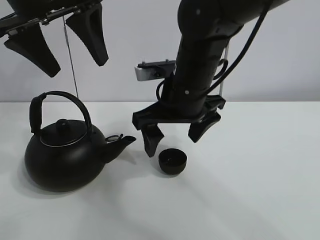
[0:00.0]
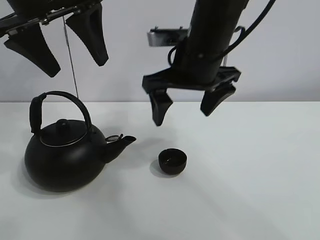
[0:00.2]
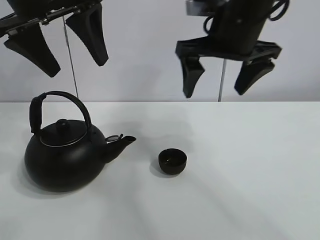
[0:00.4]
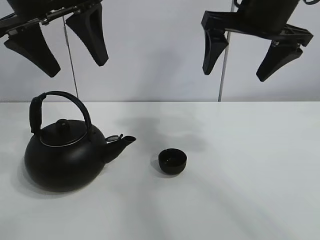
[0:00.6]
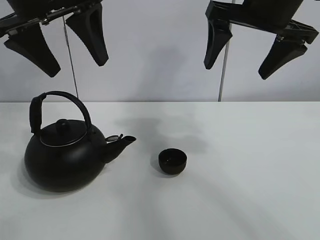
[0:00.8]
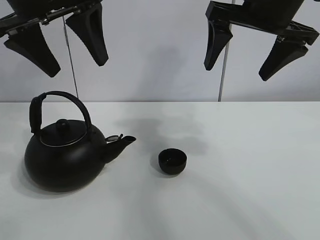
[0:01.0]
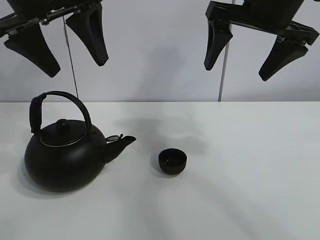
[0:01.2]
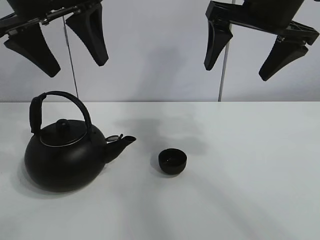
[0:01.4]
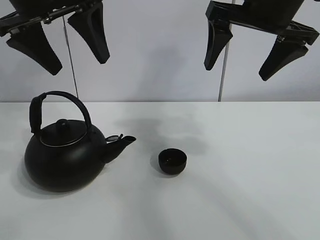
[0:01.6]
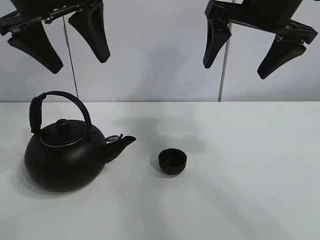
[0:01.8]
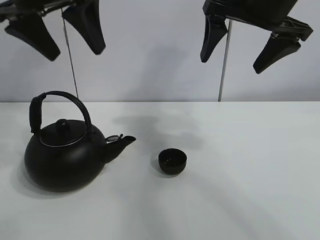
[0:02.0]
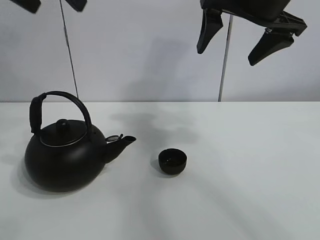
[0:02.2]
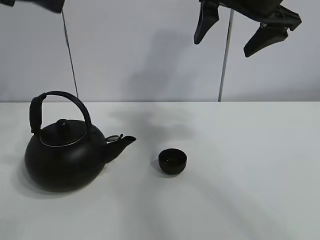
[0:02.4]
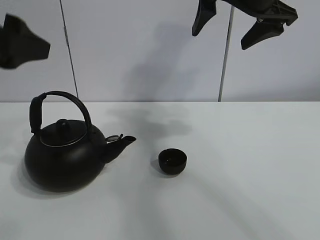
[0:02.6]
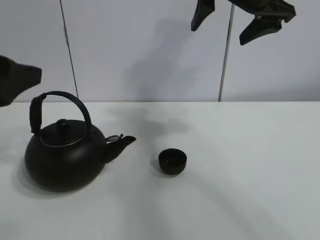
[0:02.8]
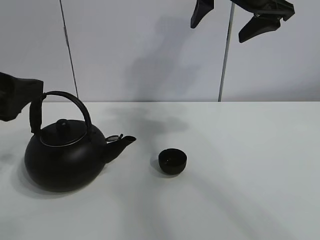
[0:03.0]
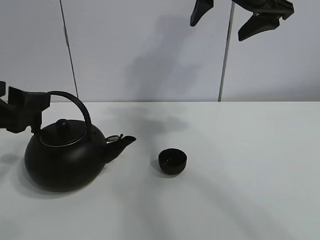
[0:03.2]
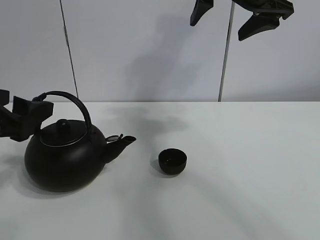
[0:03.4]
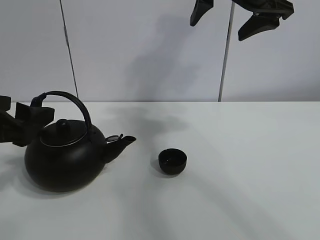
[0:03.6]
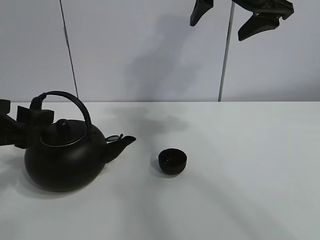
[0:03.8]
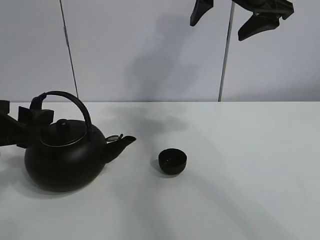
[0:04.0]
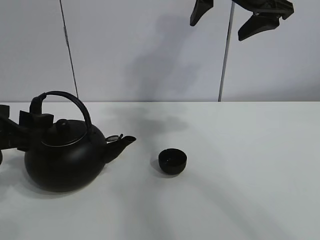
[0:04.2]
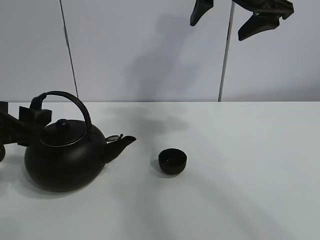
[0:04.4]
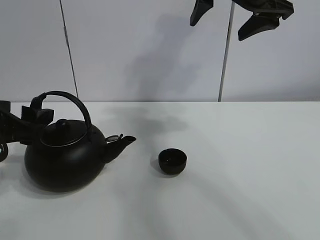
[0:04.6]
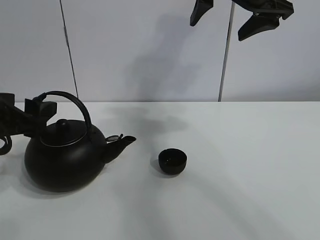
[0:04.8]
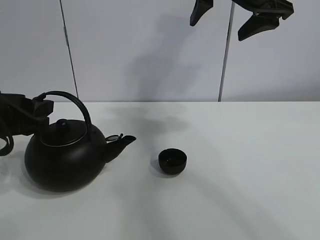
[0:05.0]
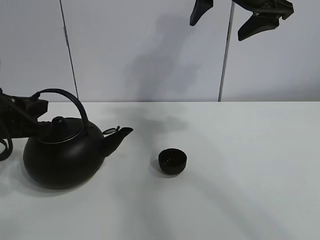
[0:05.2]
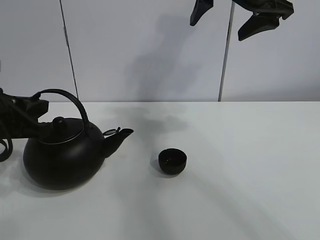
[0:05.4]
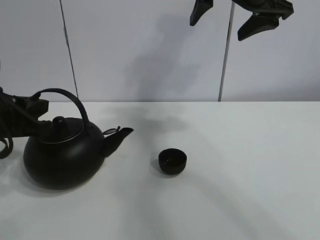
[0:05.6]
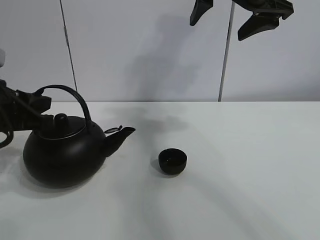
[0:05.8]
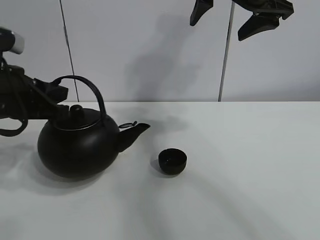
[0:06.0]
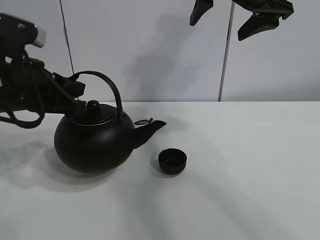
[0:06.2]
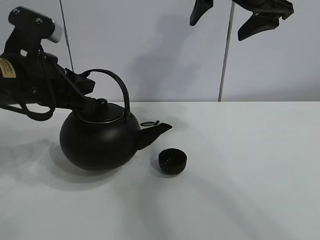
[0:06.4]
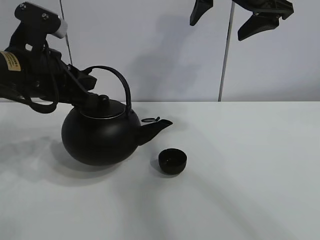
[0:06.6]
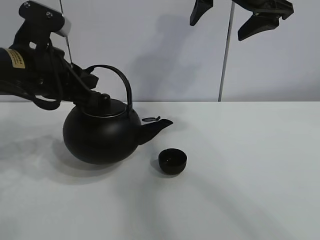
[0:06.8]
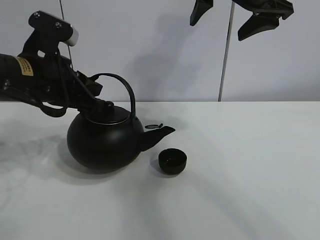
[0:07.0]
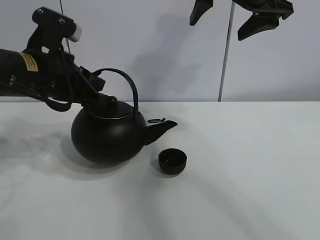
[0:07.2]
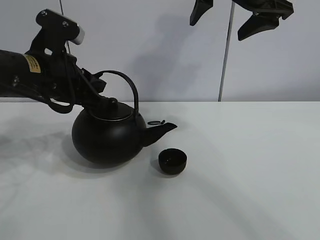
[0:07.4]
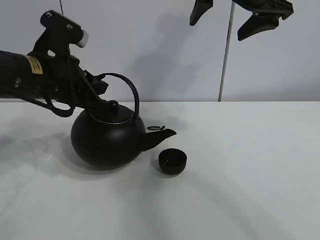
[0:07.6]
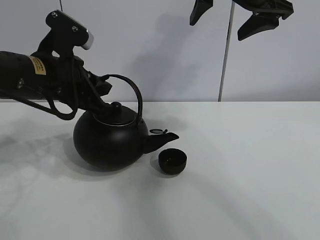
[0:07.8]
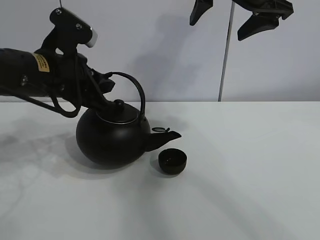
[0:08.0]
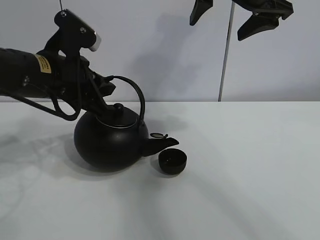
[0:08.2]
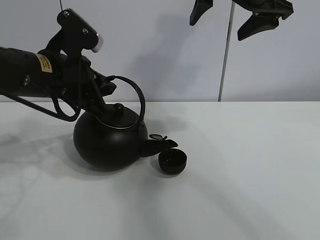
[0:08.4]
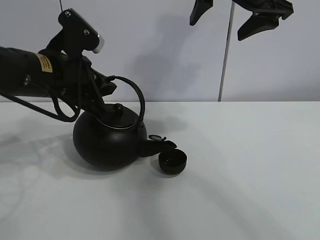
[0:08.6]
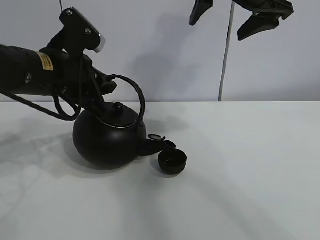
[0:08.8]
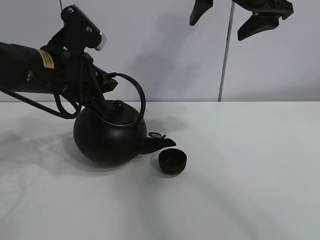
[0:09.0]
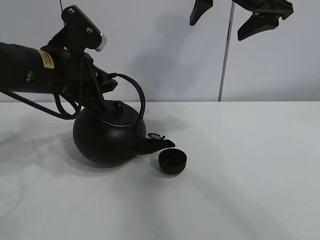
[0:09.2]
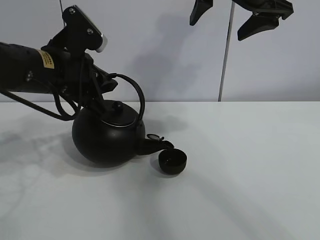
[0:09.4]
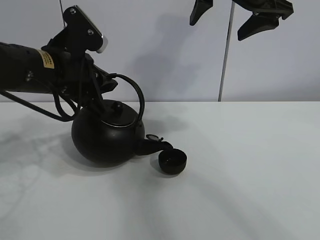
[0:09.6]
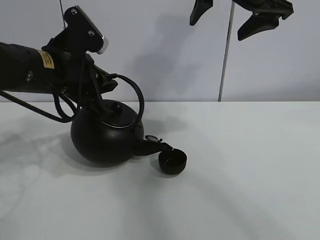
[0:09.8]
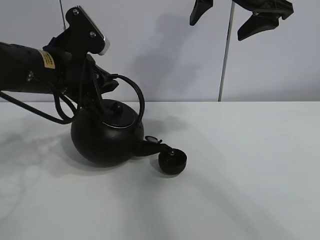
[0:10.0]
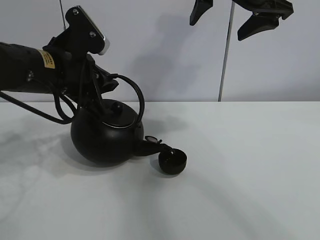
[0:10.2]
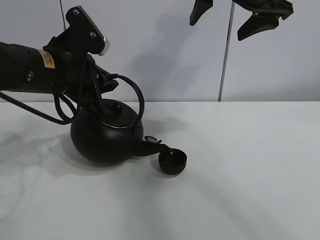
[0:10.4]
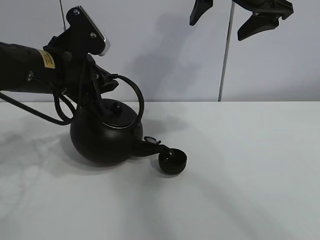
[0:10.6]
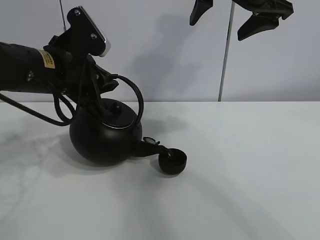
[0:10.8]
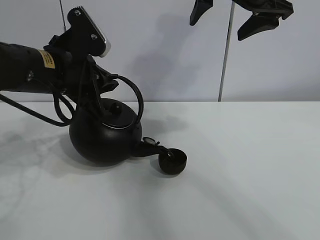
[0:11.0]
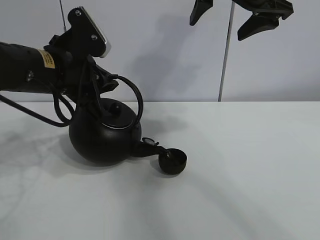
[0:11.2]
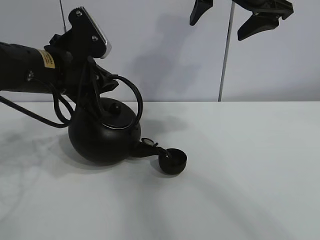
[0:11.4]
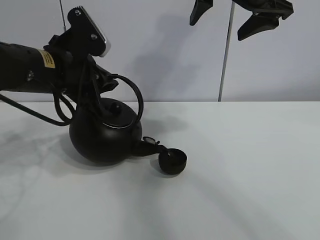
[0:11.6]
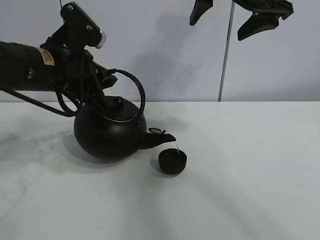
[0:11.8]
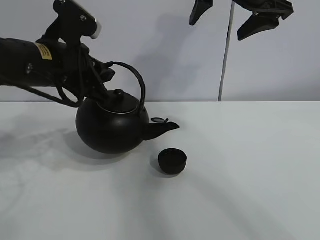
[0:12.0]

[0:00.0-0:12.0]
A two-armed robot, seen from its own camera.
Task of the whole recording: pour tea into the teacup.
Step, 0:00.0 to 0:05.6: Pick up the teapot with the left gripper.
Step, 0:05.8 to 0:11.8: Pour tea into the teacup with the left gripper.
0:00.0 to 0:01.6: The right gripper travels upward and to the right by roughly 15 cm.
0:01.6 to 0:03.0: The left gripper moves downward, backward and to the left, some 20 cm.
0:03.0 to 0:04.4: The left gripper shifts approximately 5 cm downward.
0:04.4 to 0:06.0: The left gripper shifts by about 5 cm, and closes its fingers.
0:06.0 to 0:07.6: The left gripper goes some 5 cm to the right.
0:07.6 to 0:10.4: The grippers move only a little.
0:10.4 to 0:12.0: The grippers make only small movements.

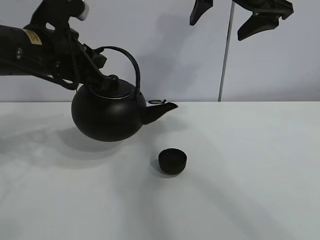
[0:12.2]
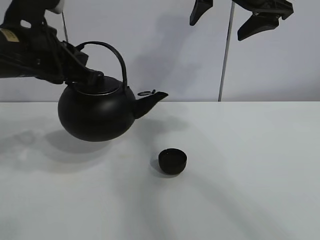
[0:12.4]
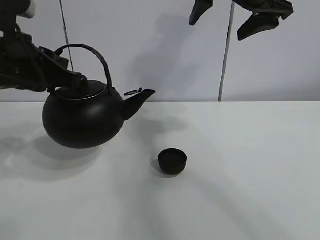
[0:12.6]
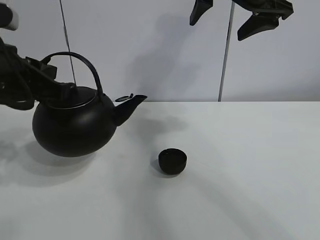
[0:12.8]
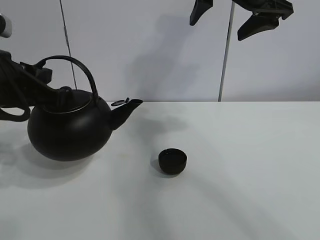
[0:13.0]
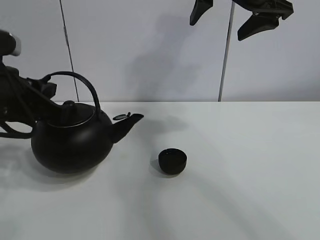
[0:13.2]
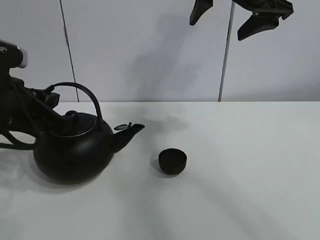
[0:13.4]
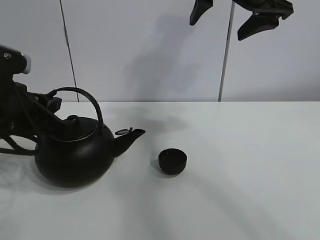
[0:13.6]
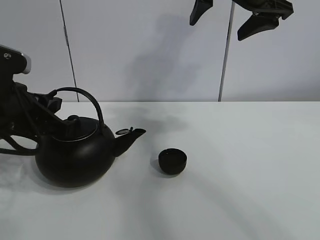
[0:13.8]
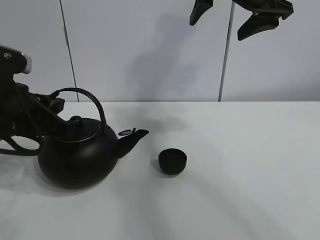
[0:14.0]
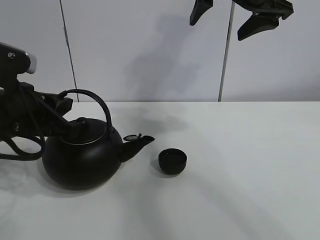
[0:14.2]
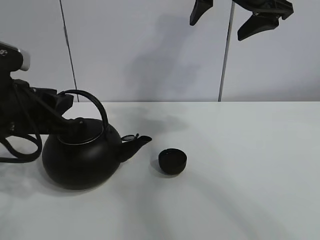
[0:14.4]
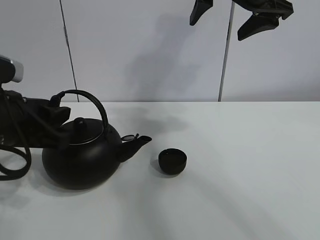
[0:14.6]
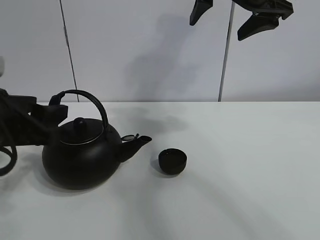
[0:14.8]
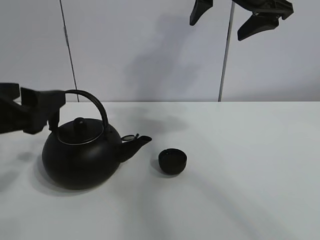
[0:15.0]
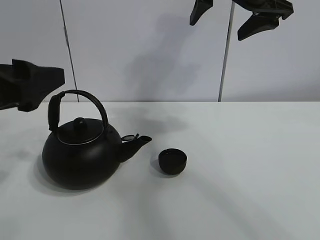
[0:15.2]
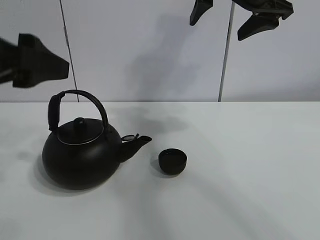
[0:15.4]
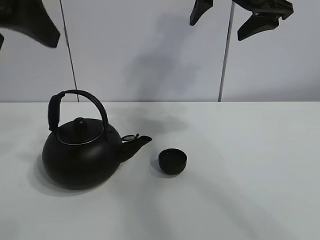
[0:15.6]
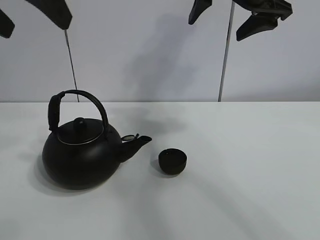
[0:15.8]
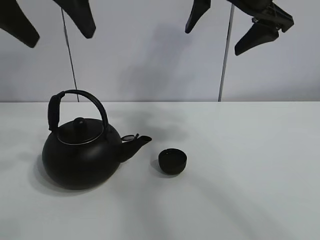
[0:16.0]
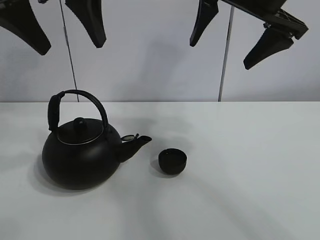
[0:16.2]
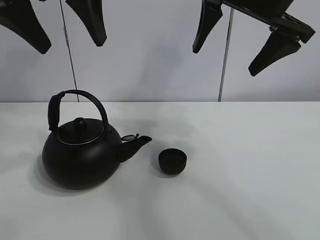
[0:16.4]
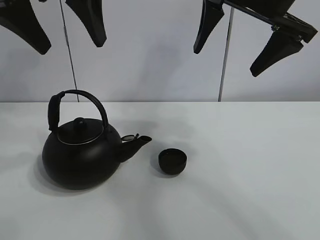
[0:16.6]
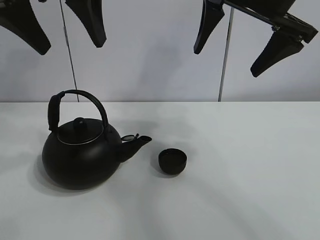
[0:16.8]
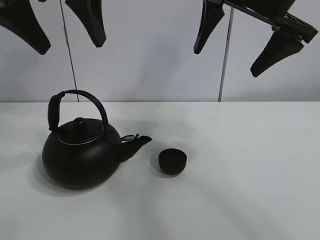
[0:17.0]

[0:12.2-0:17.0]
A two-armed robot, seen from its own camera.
Task of the whole recording: pour tea into the teacup.
0:12.2 to 0:13.8: The left gripper heads downward, backward and to the left, covering some 10 cm.
0:13.8 to 0:15.4: The left gripper heads upward and backward, covering some 10 cm, and opens up.
0:15.4 to 0:17.0: The left gripper heads upward, forward and to the right, covering roughly 15 cm.

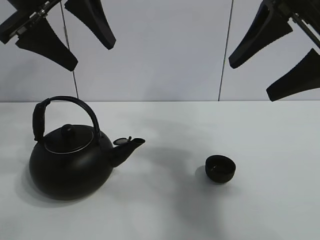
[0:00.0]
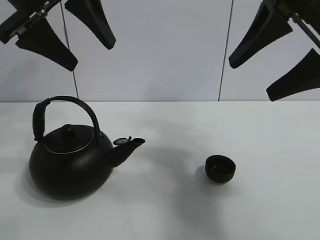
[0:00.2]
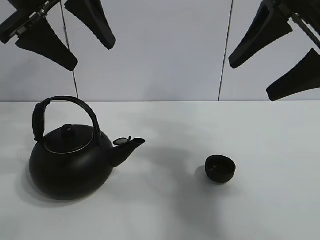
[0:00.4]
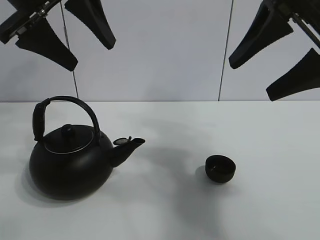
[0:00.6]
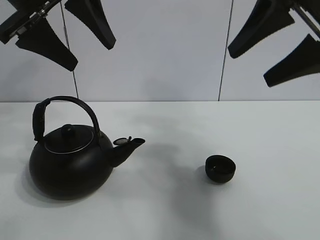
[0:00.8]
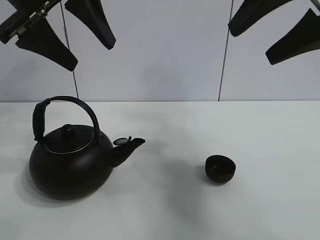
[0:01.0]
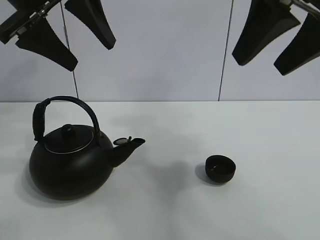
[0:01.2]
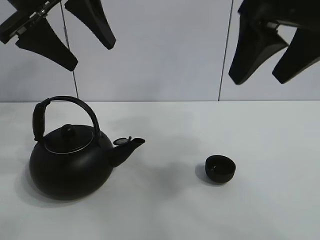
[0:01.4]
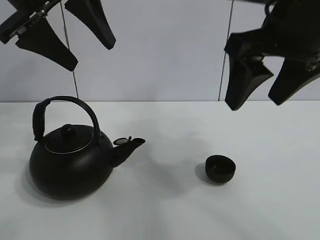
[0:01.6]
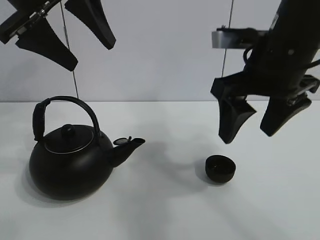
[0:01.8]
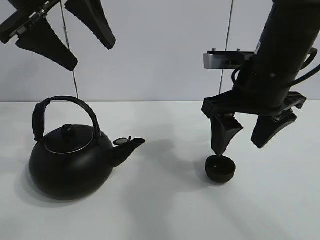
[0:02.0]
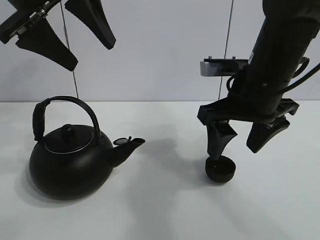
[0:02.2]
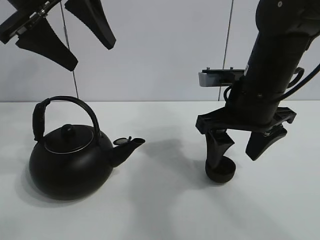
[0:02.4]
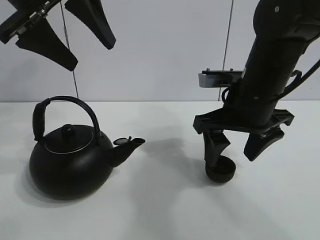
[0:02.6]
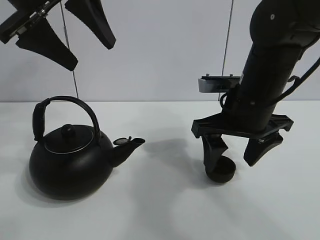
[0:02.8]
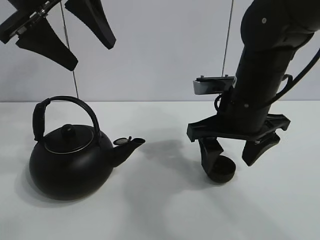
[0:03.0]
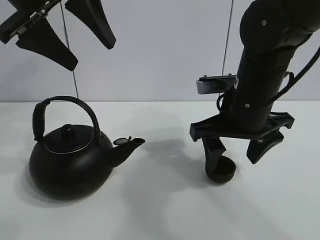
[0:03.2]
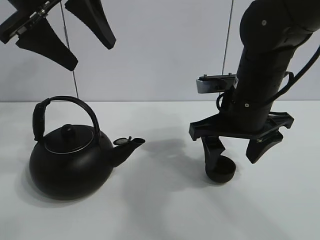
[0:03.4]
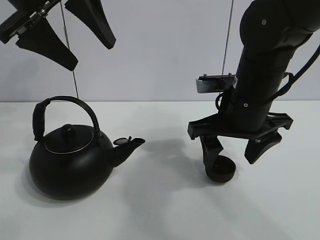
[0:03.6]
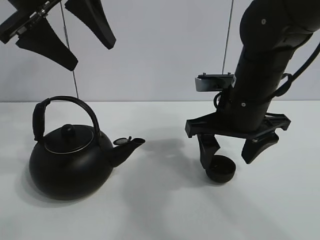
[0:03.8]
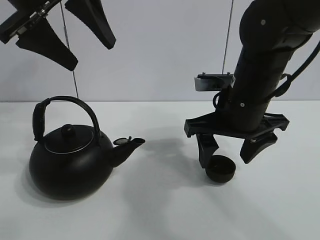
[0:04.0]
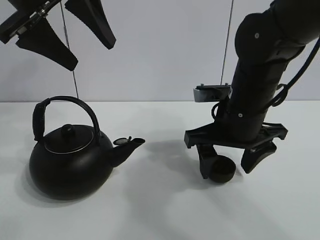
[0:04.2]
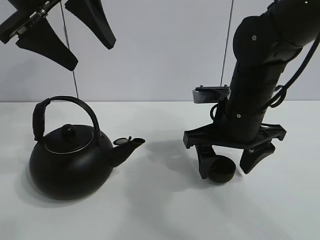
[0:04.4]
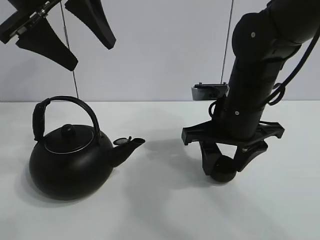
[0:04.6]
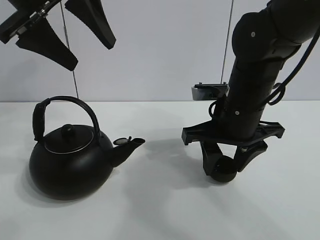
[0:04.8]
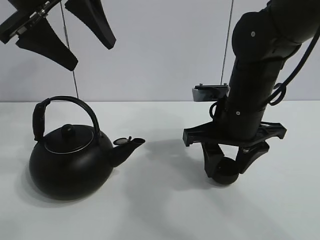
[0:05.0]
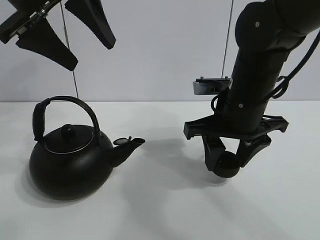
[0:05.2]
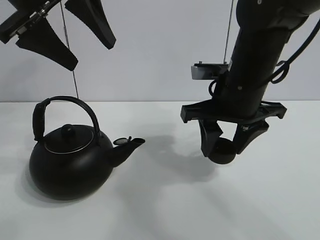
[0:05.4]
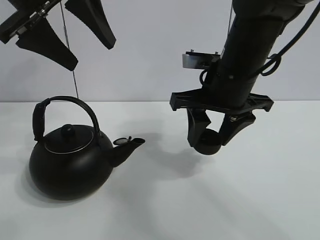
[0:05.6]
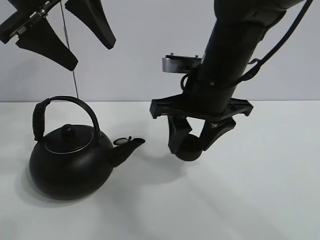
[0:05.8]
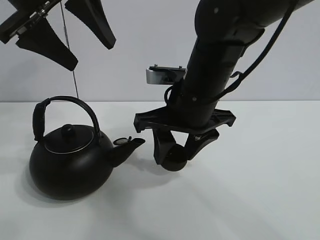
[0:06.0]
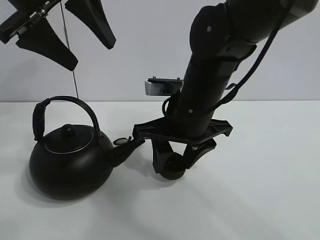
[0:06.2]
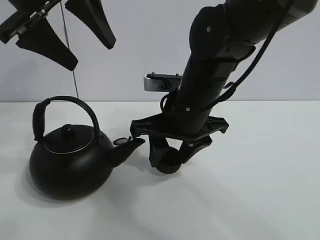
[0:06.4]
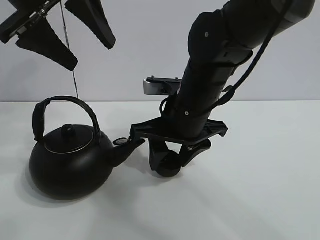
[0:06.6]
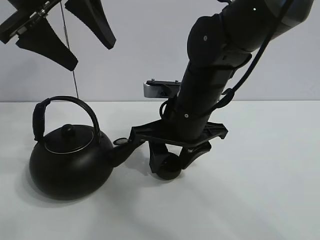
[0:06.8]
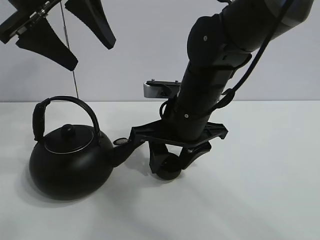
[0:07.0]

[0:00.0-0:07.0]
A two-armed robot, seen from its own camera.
Task of the whole recording: pour tea into the teacup.
Step, 0:00.0 to 0:05.0: Pick up the teacup with the right gripper.
0:01.4 to 0:02.8: The right gripper shifts roughly 15 cm downward and forward.
0:02.8 to 0:04.2: There are only small adjustments of the grippers.
0:04.2 to 0:05.6: The right gripper ends up approximately 5 cm from where it was, and closes its fingers.
0:05.6 to 0:07.0: The right gripper travels to the left and downward by approximately 10 cm.
